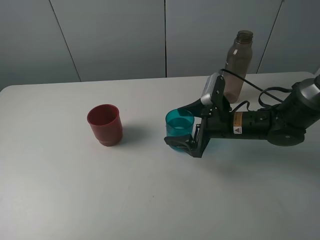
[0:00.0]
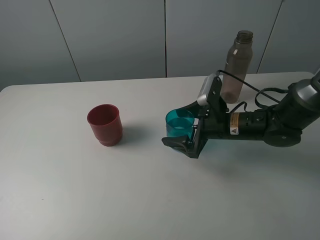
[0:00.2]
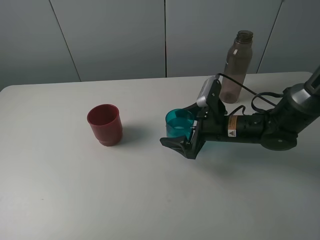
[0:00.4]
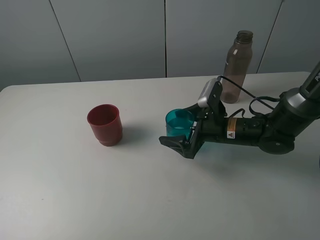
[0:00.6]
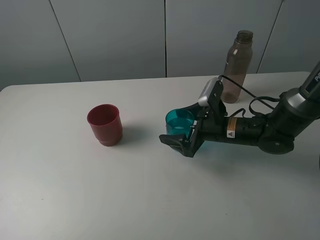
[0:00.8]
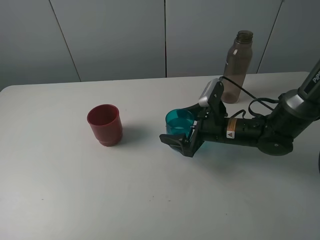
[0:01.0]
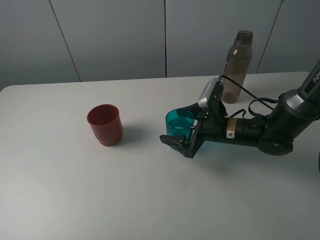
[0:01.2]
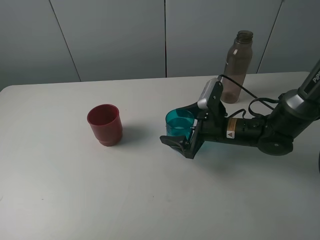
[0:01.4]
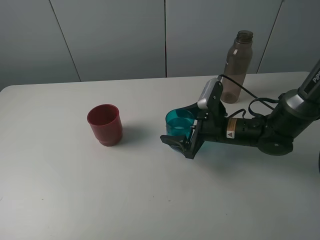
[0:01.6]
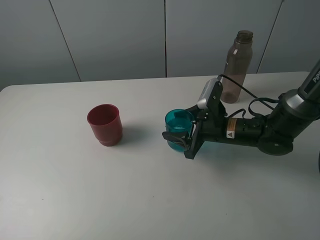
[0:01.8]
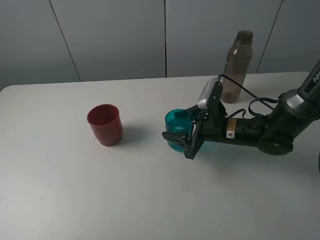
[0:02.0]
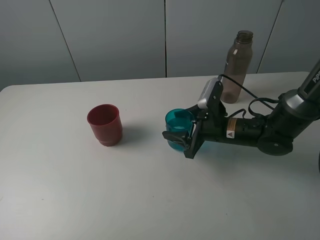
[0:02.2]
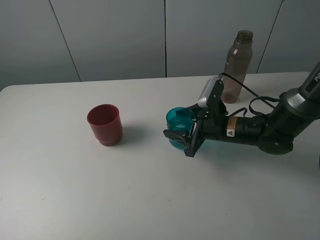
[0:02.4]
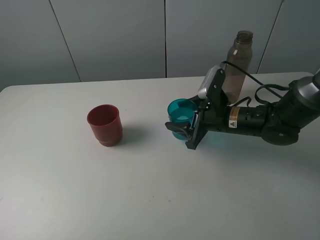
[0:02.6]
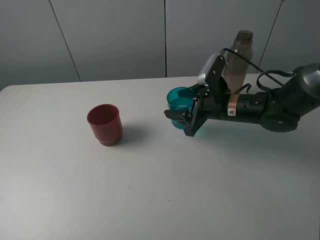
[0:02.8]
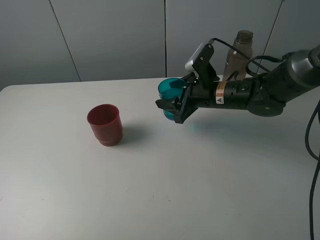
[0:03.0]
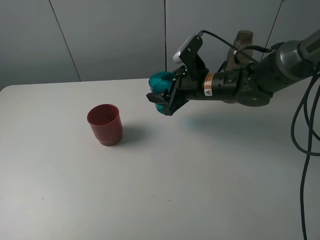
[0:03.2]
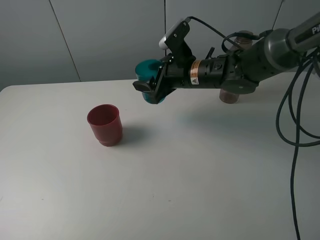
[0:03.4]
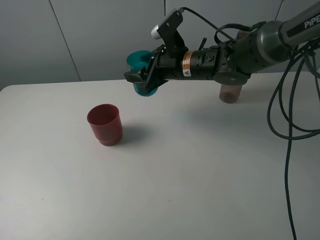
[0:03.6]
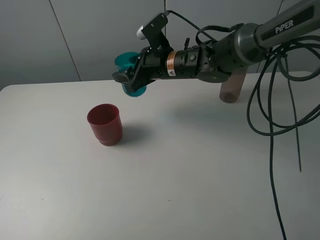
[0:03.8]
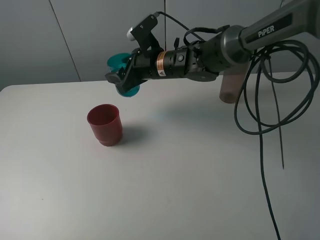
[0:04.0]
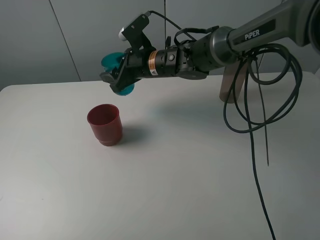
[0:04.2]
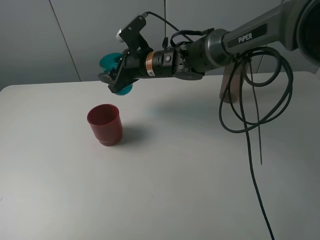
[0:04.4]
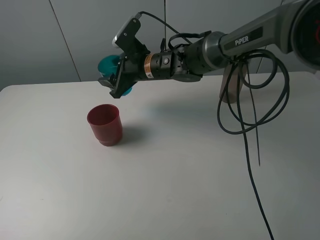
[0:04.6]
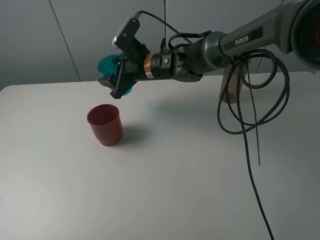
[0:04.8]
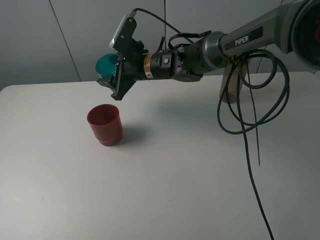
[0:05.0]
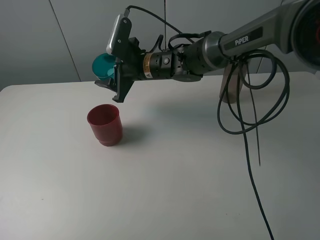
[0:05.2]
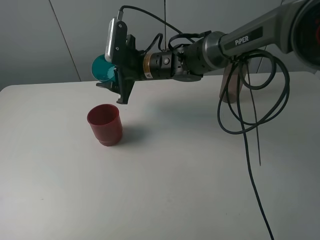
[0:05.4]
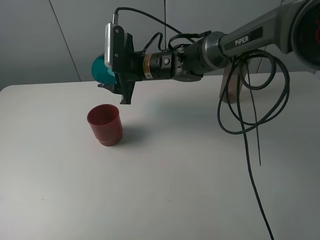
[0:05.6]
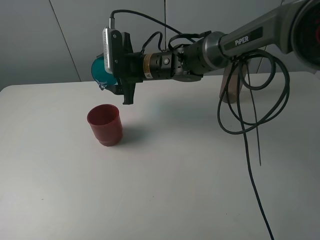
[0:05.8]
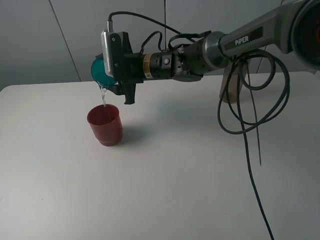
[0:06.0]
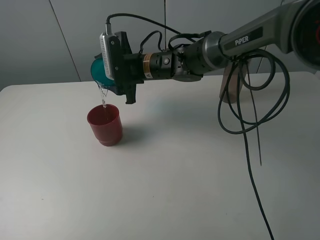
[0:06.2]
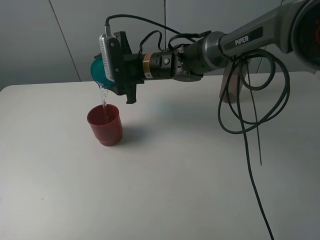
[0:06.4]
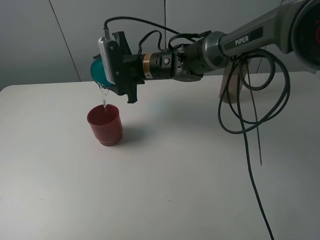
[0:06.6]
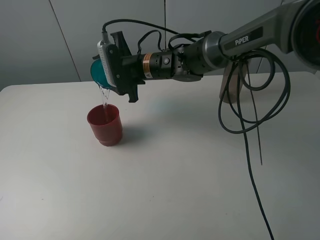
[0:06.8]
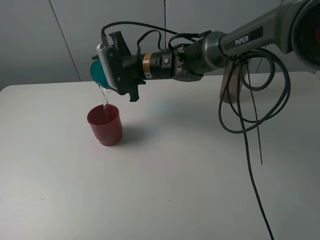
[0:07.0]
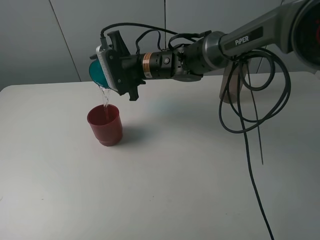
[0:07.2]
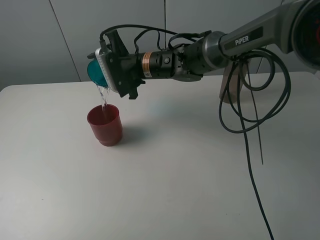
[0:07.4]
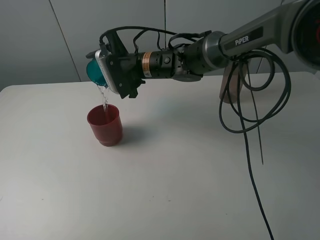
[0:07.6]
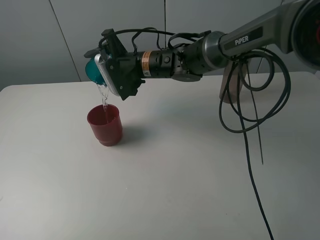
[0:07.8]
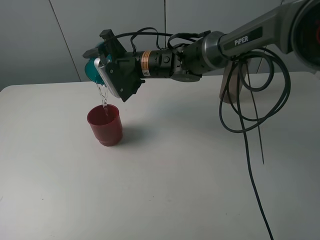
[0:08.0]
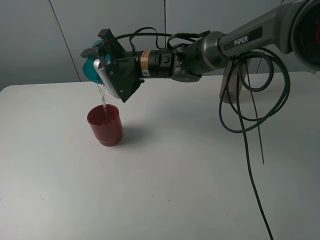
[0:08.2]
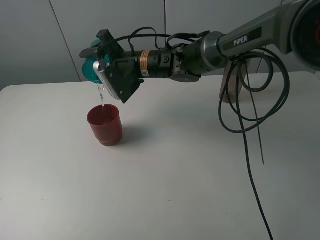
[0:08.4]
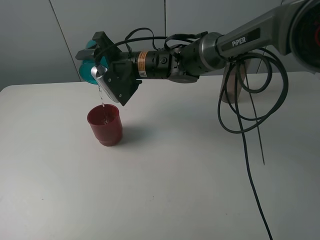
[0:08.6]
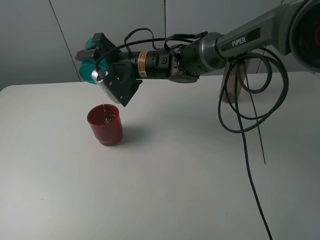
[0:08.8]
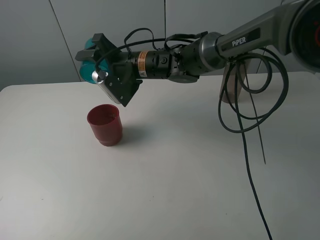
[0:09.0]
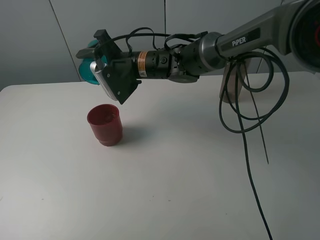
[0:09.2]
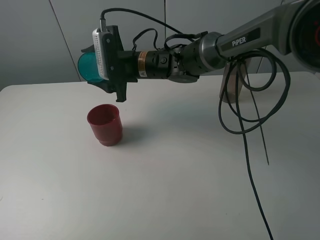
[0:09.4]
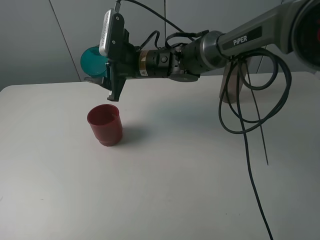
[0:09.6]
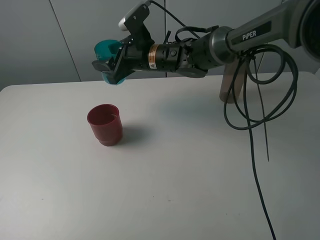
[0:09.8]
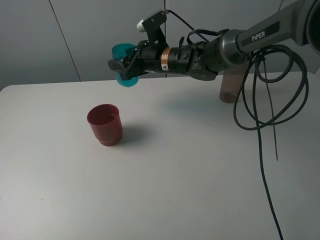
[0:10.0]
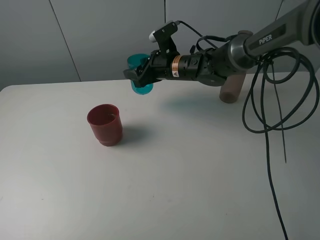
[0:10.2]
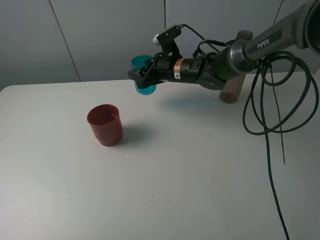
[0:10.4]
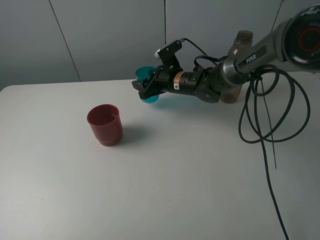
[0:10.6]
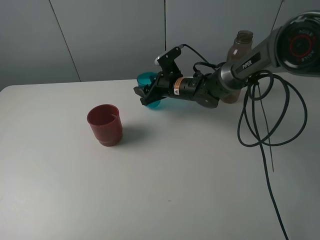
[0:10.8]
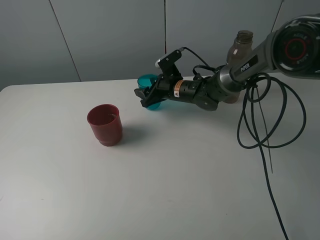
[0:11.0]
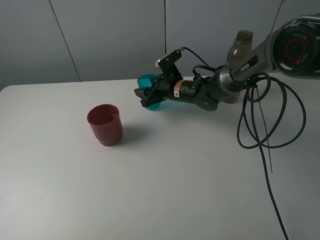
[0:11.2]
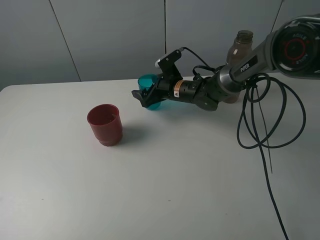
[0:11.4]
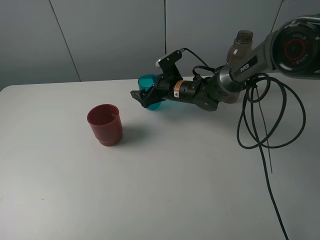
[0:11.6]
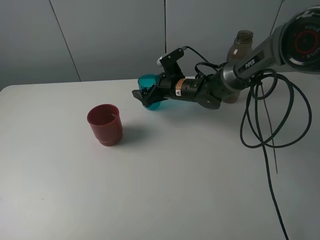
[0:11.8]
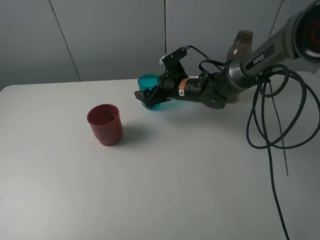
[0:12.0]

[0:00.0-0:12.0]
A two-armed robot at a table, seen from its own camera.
Task of the whole recording: pick up the bottle and pour water into the cup, then pick up the cup containing water and pour it into another cup.
Step, 0:00.0 to 0:02.0: Grasp the blue cup with the right gripper.
Step, 0:02.2 to 0:08.6: Pour water from blue cup to red cup with the right gripper.
Step, 0:08.8 to 0:11.8: Place the blue cup with the right gripper.
0:00.0 to 0:01.6: There are only small adjustments of the grippers.
0:01.6 to 0:03.0: The right gripper is displaced upward and forward by approximately 10 cm, and closes its fingers.
0:03.0 to 0:04.4: The right gripper is displaced to the left and forward by roughly 15 cm.
0:09.0 to 0:10.4: The right gripper is displaced to the right by roughly 10 cm.
0:10.4 to 0:12.0: The right gripper opens up.

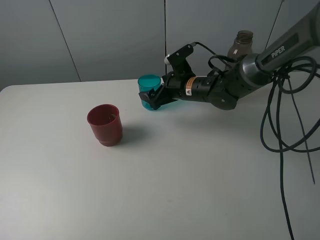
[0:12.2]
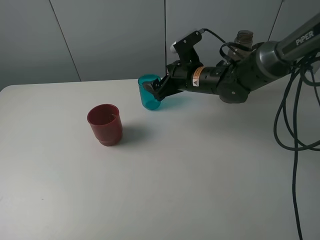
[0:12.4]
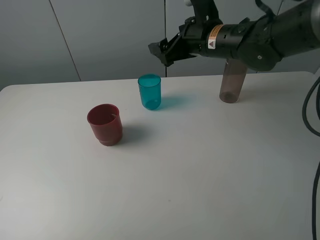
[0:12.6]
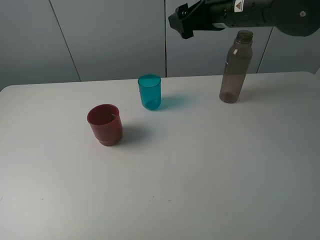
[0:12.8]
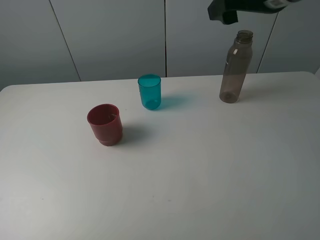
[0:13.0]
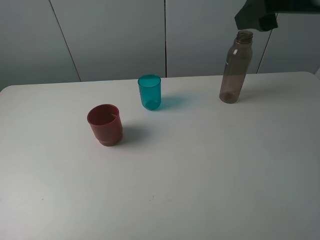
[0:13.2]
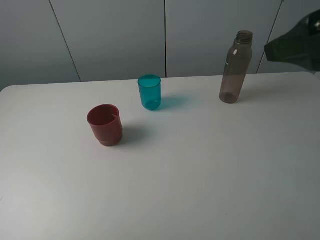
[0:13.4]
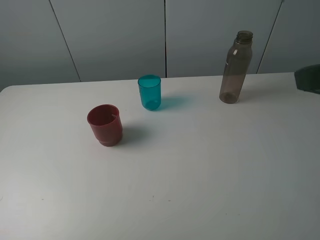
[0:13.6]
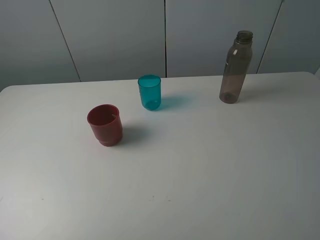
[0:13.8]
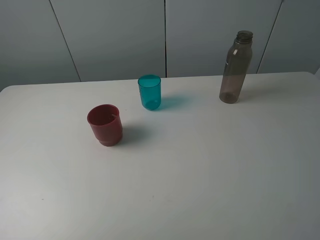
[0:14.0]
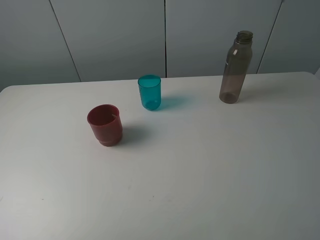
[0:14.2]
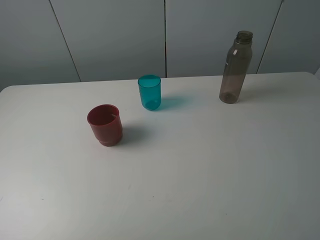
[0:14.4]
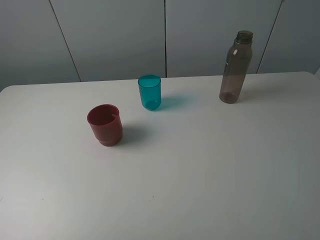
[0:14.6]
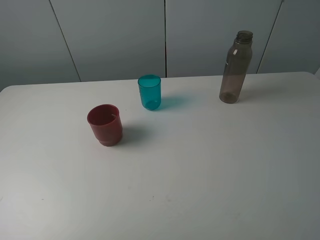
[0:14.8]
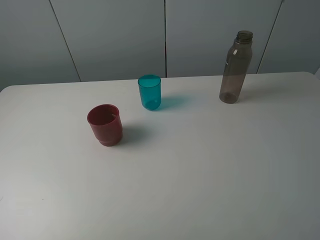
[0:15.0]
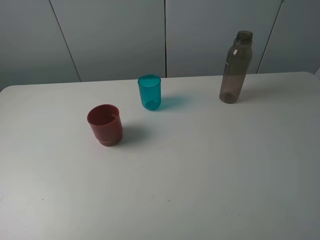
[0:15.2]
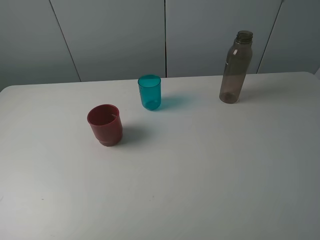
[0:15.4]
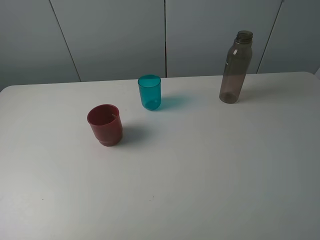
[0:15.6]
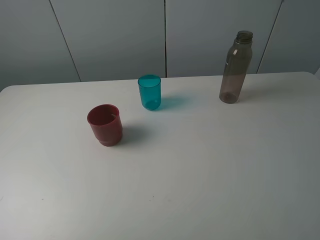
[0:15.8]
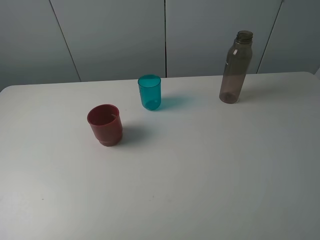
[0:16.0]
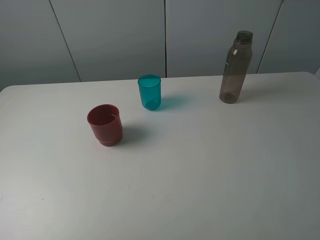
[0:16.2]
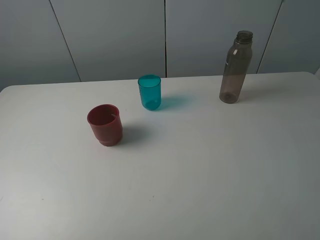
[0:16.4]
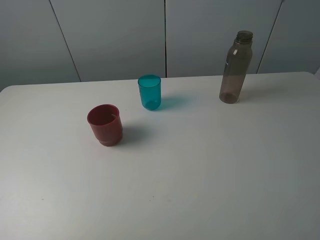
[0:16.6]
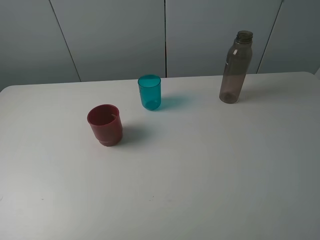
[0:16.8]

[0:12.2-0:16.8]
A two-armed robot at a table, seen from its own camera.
Task of the whole recording: pick up the bottle and pour water into the cup, then pick up the cup containing water and pour it into another cup.
0:12.2 to 0:13.8: The right gripper heads backward, upward and to the right, covering approximately 40 cm.
0:15.2 to 0:16.8: Neither gripper changes place.

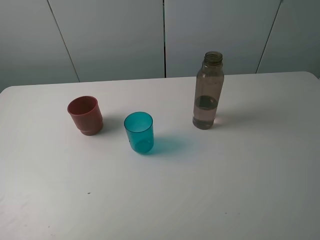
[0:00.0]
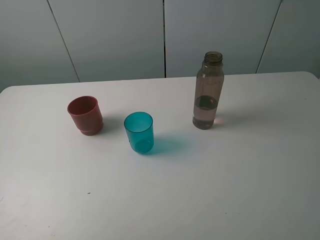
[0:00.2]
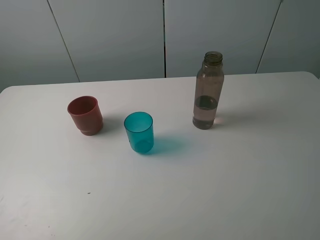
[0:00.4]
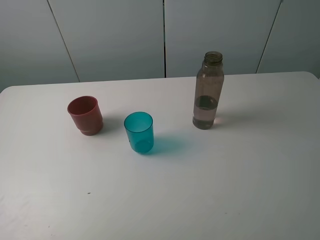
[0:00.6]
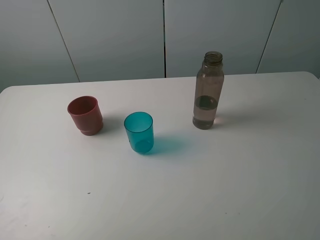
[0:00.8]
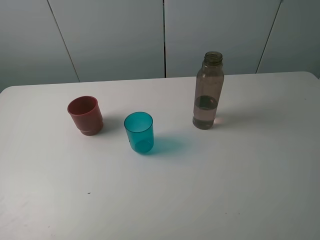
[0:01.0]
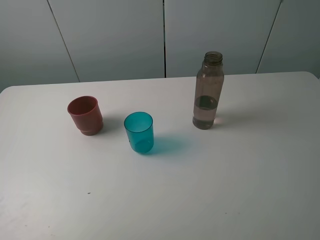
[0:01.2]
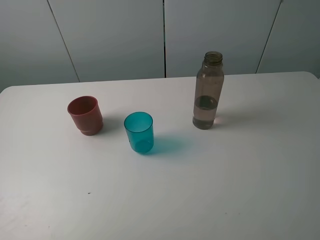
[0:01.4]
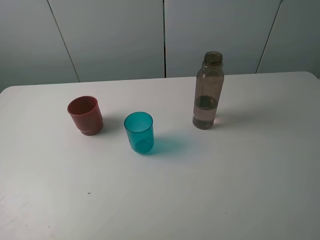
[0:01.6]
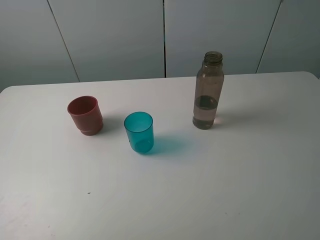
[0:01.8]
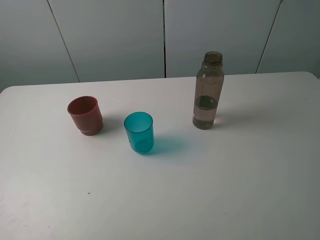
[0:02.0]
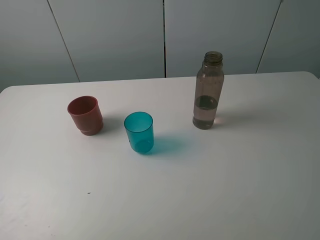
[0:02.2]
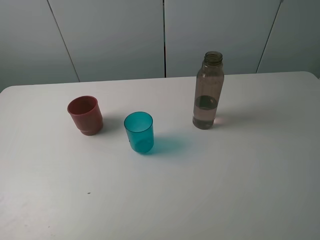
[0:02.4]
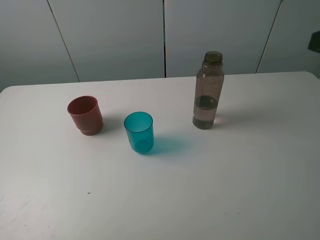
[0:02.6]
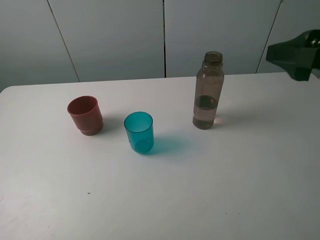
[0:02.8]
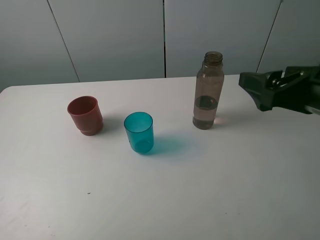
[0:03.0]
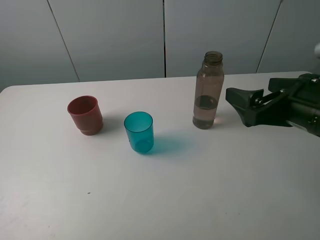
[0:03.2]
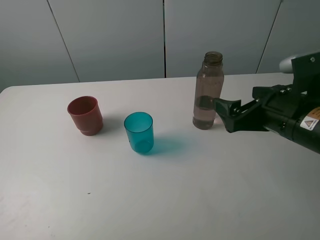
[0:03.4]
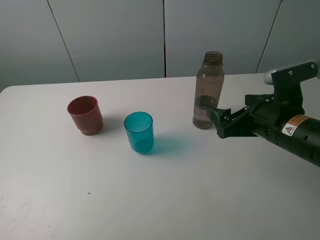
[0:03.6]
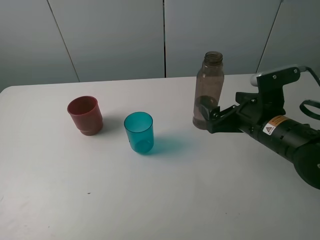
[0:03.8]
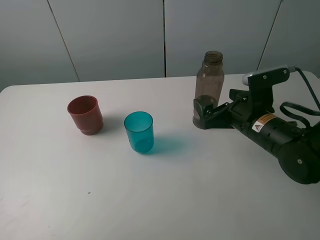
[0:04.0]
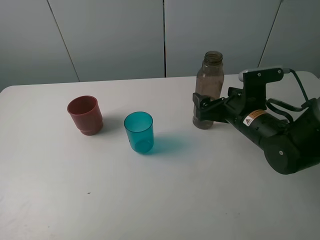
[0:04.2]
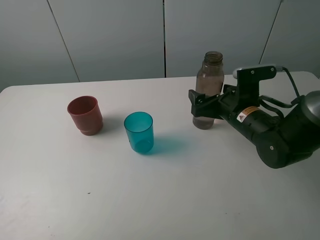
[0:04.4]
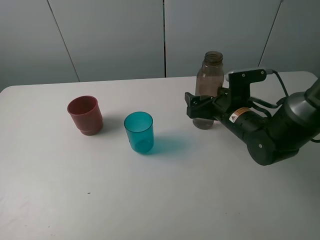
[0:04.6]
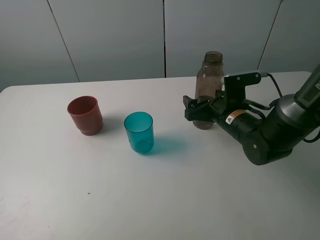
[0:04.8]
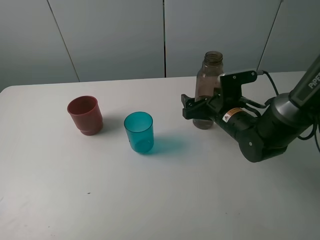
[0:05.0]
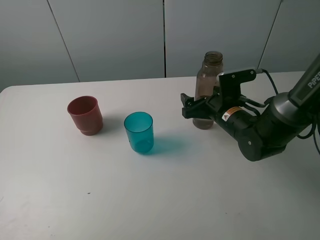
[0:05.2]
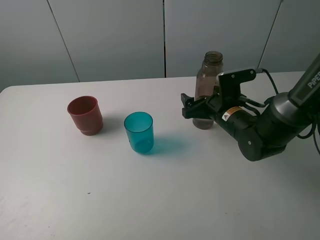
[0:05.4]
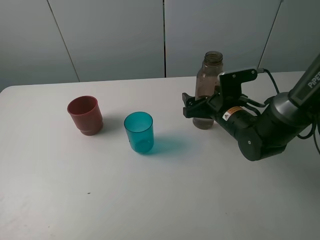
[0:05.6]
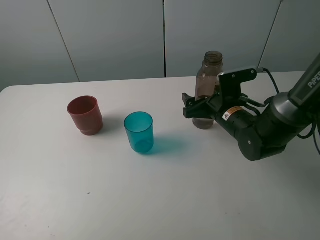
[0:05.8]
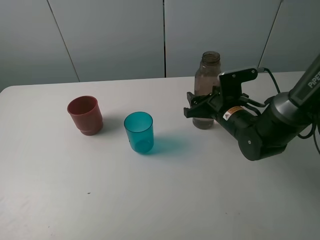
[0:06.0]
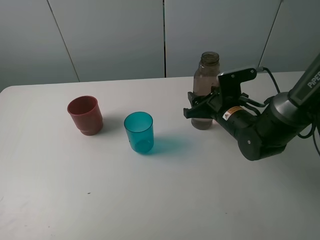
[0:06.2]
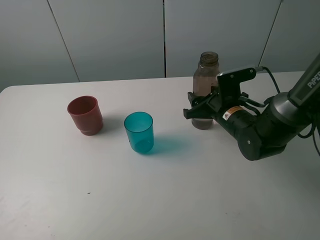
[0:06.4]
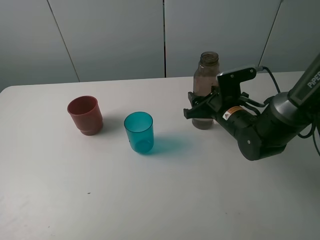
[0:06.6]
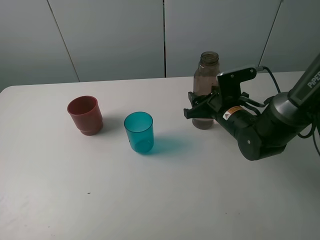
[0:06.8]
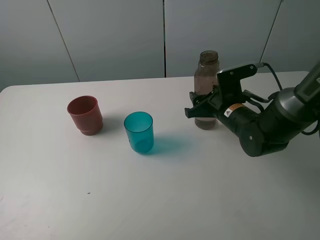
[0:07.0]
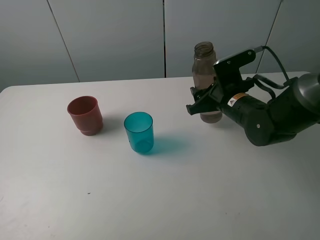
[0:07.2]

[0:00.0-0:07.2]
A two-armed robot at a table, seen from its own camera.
Task of the whole recording: pick up the bottle and pour water into the cup, then pick up the cup containing water and pour it into another cup.
Step, 0:00.0 to 0:06.0: Grasp the brown bottle with the right gripper.
0:00.0 to 0:01.4: Both grippers stay about where they are.
0:01.4 to 0:02.8: The right gripper shifts some 15 cm forward.
0:02.8 to 0:04.4: The right gripper heads downward, forward and to the left, covering about 20 cm.
0:04.4 to 0:05.8: The grippers move only a little.
0:05.8 to 0:07.2: The right gripper closes its fingers.
